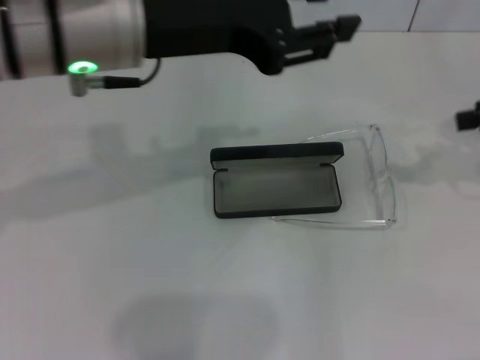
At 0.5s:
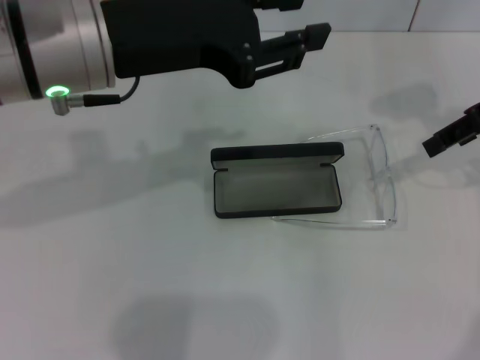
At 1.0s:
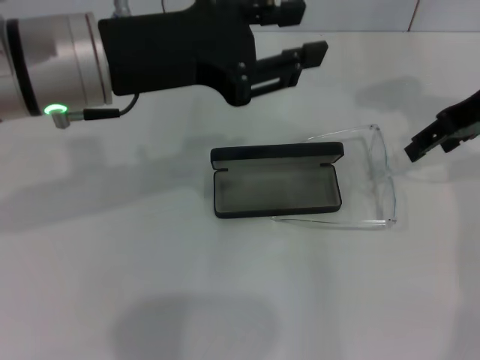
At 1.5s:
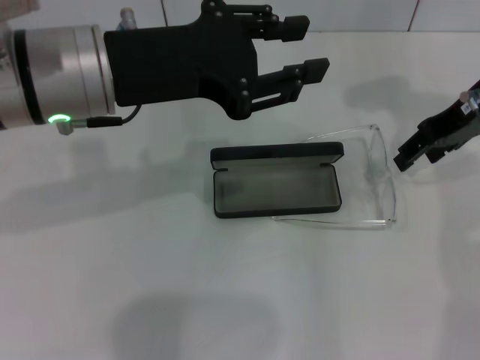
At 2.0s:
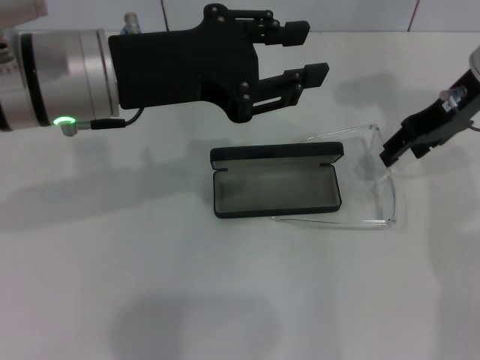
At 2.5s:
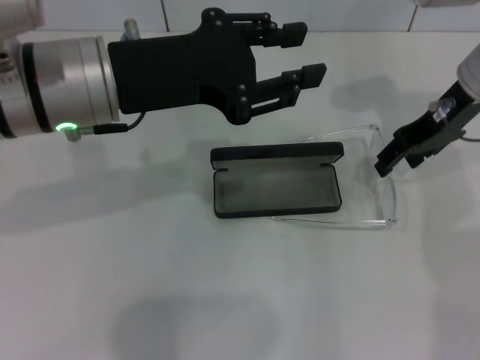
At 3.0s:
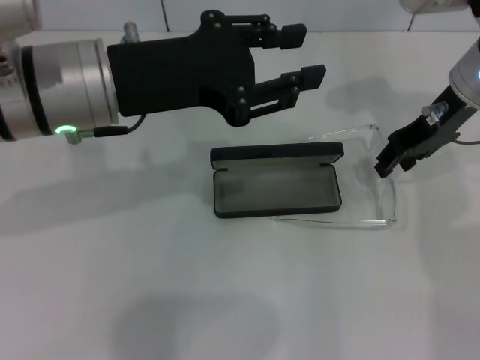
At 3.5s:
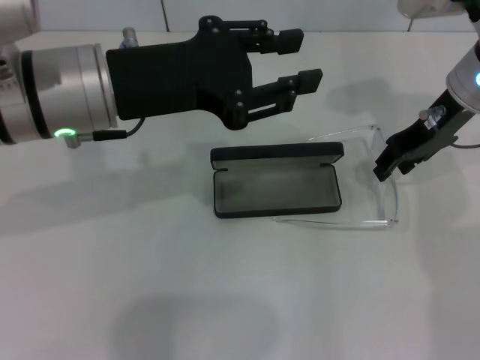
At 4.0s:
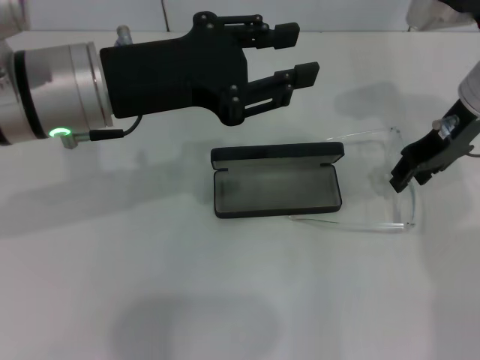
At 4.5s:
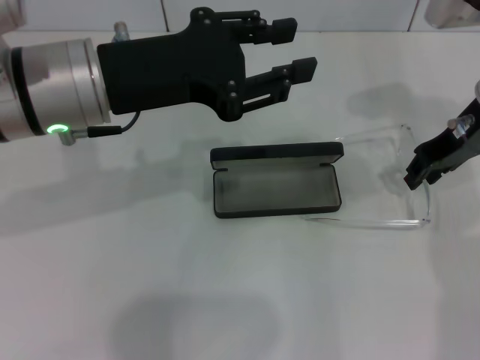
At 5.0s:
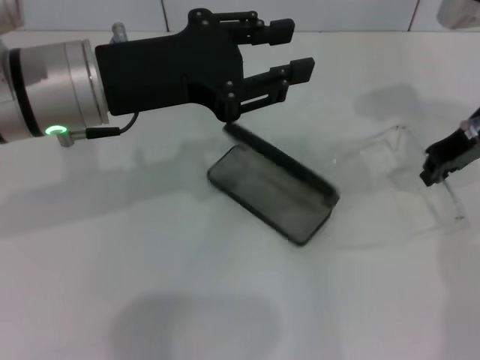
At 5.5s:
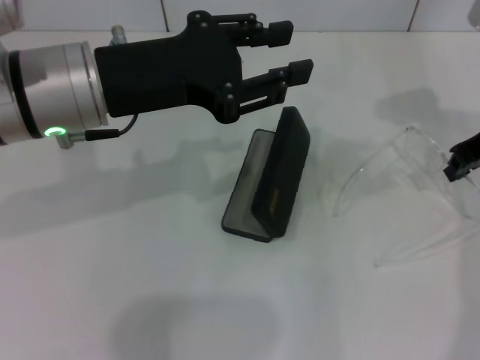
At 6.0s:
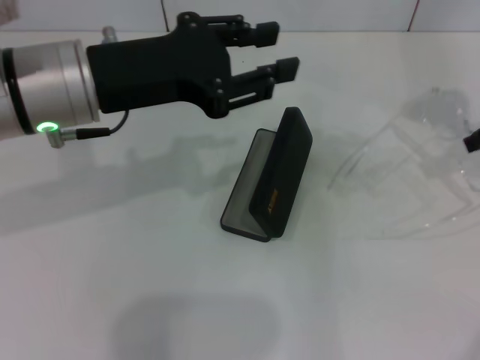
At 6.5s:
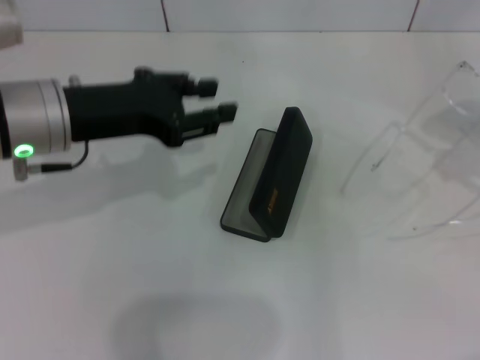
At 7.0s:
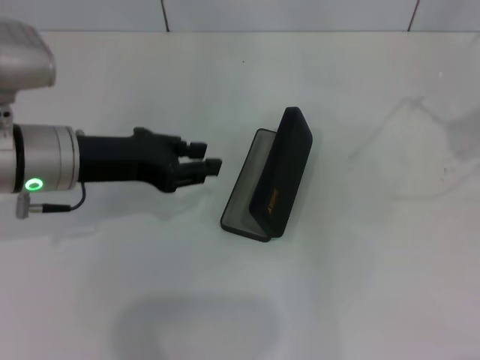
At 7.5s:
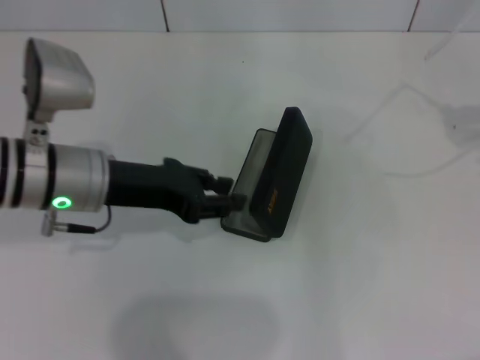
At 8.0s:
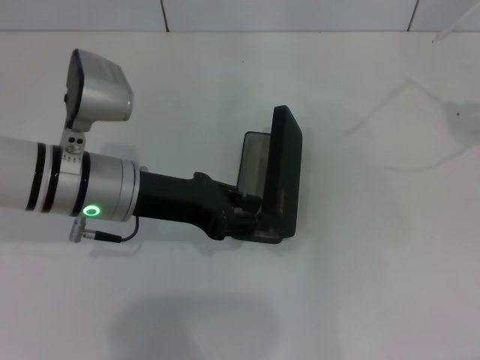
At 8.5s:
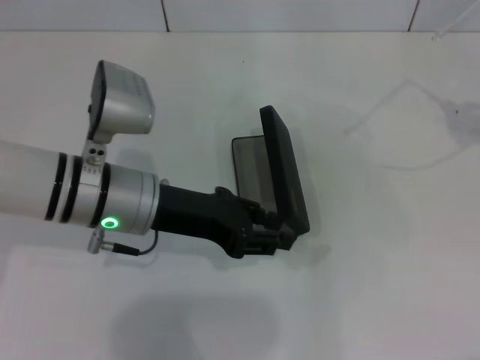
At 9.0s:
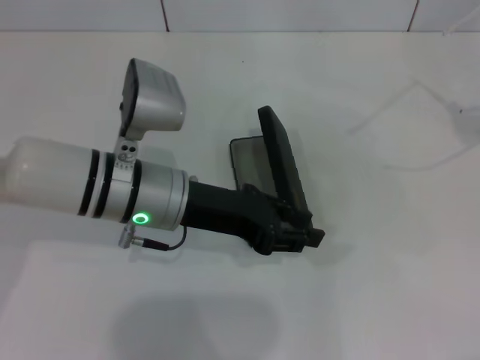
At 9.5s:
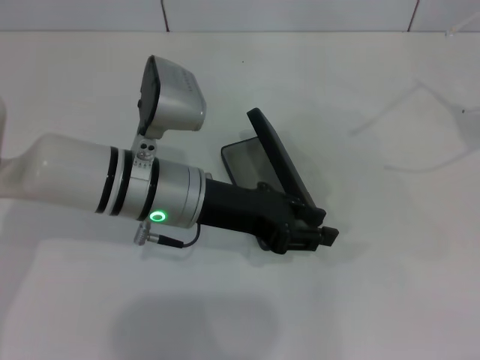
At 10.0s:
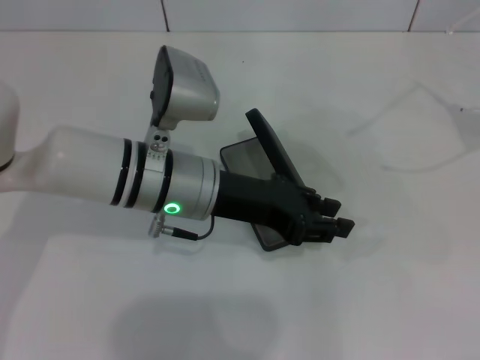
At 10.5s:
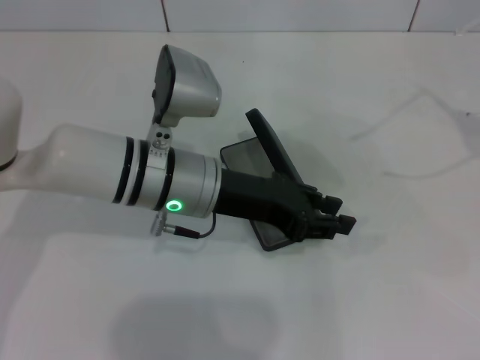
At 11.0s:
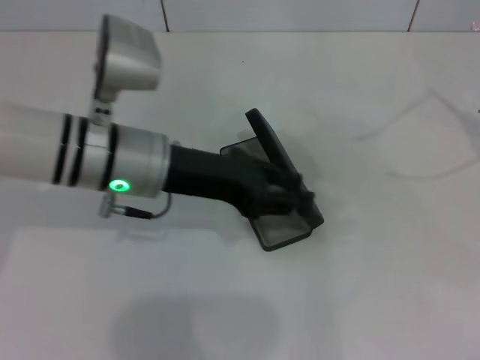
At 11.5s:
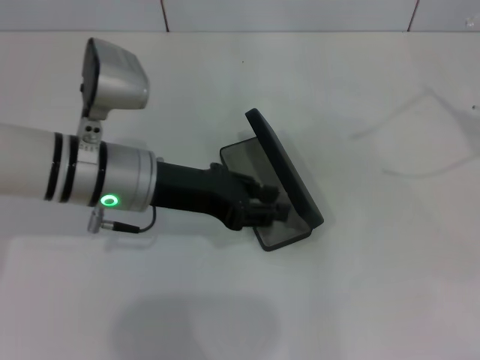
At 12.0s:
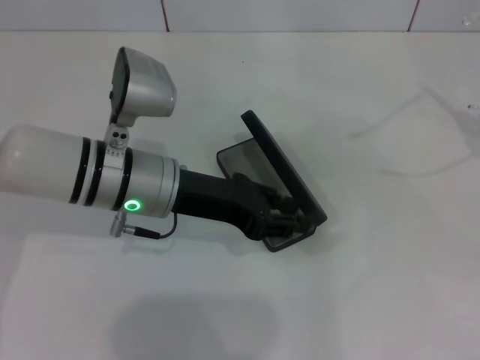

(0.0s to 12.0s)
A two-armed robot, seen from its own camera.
Step, 0.0s - 3.5s: Grab the eyeglass frame with your right hand.
0.0s - 2.0s: The right gripper shifts approximately 15 cm to the left and forward.
2.0s - 4.0s: The grippers stay close to where they were, moving slightly.
4.0s - 6.0s: The right gripper travels to the right by about 10 cm, and closes.
6.0s - 8.0s: The right gripper heads upward, to the right and backward, covering approximately 15 cm. The left gripper heads downward, covering approximately 10 cm.
8.0s - 10.0s: The left gripper moves to the right, about 5 cm.

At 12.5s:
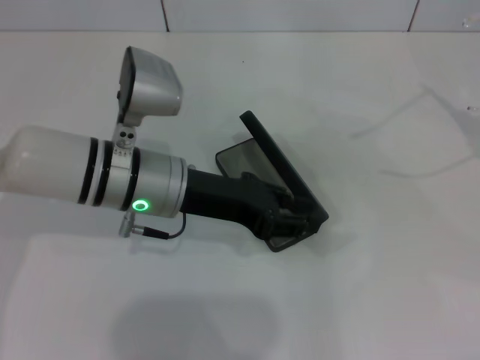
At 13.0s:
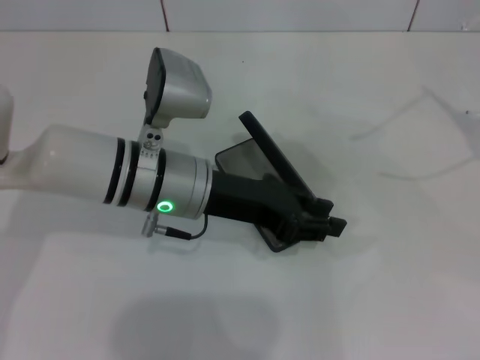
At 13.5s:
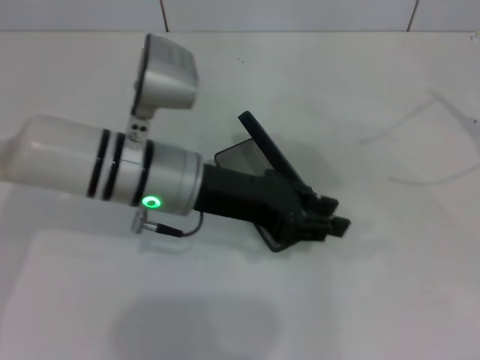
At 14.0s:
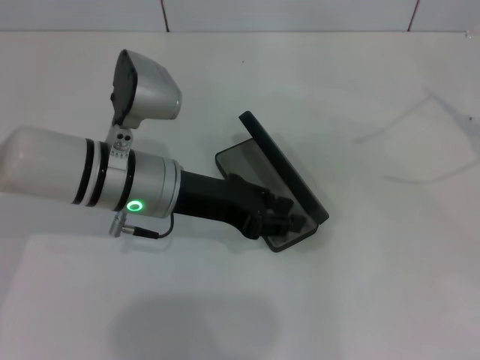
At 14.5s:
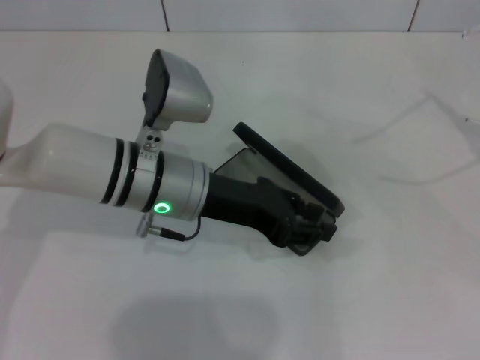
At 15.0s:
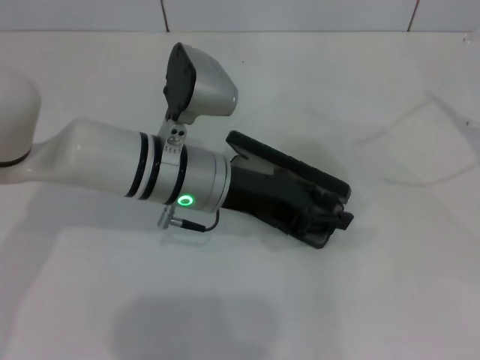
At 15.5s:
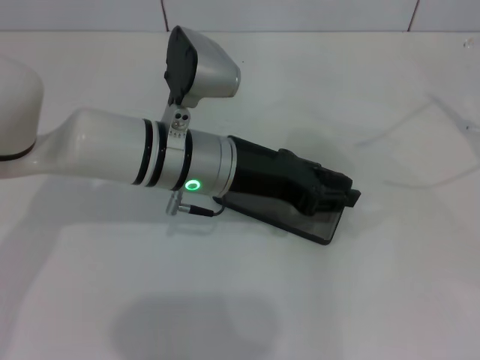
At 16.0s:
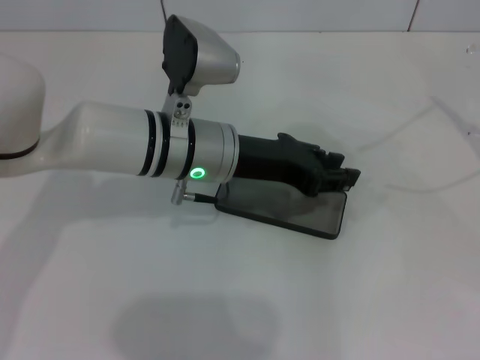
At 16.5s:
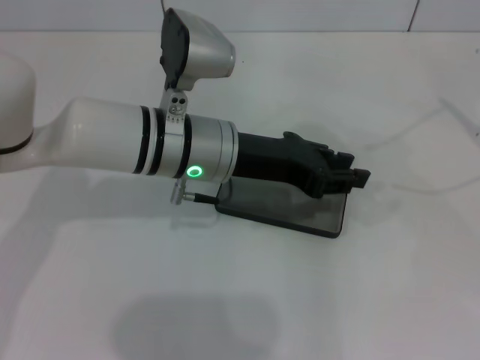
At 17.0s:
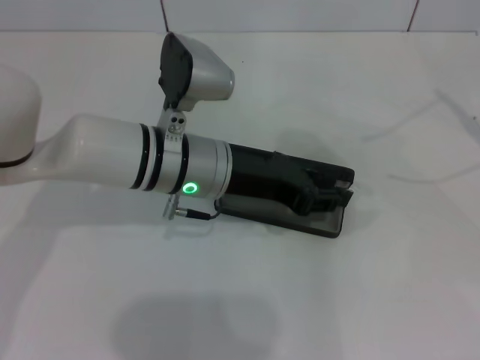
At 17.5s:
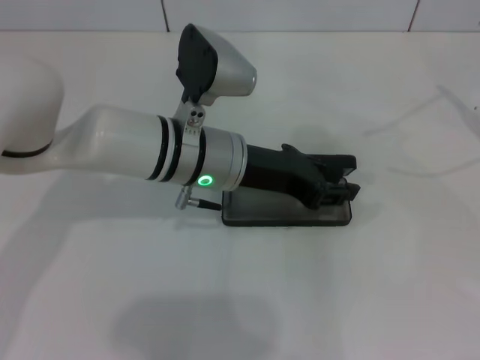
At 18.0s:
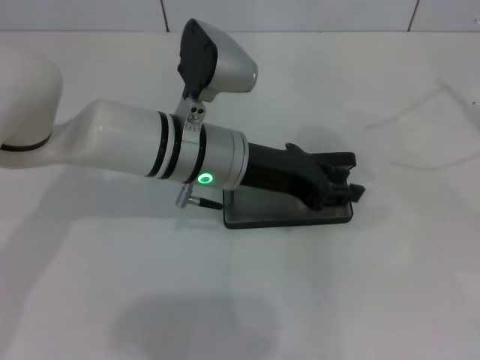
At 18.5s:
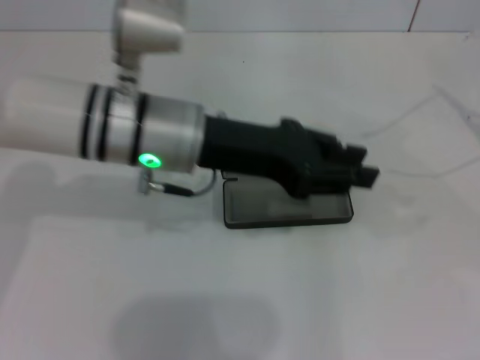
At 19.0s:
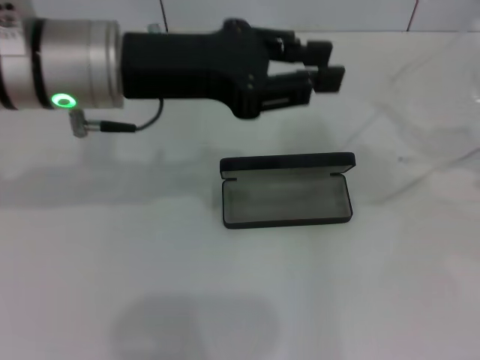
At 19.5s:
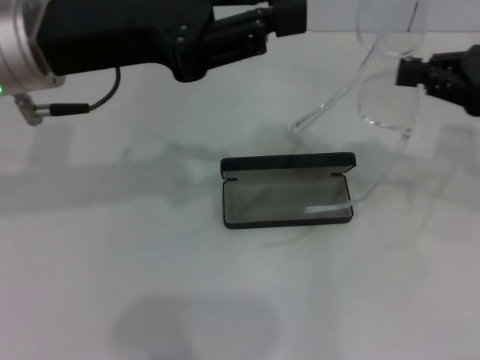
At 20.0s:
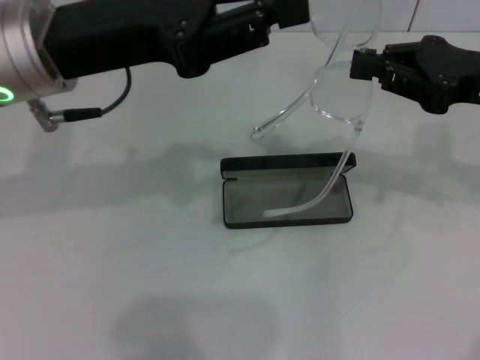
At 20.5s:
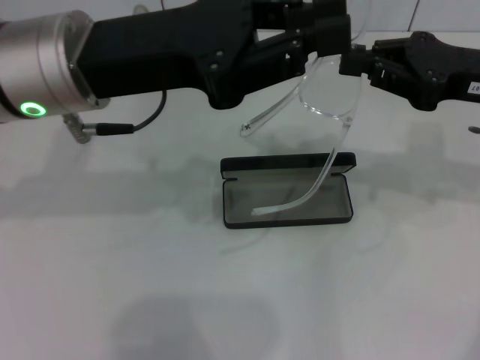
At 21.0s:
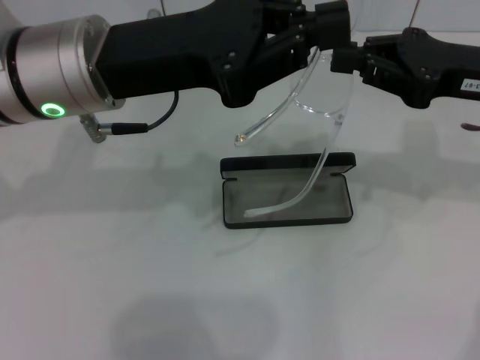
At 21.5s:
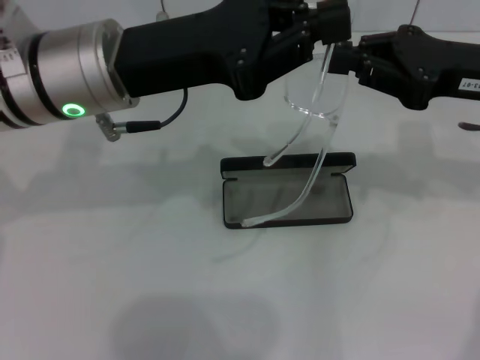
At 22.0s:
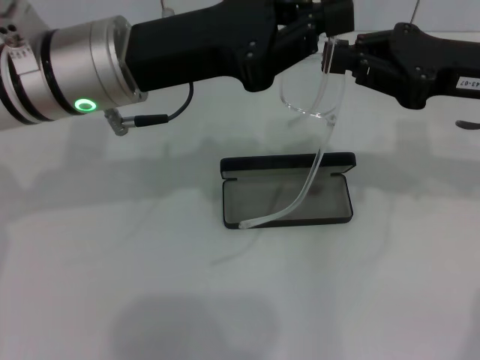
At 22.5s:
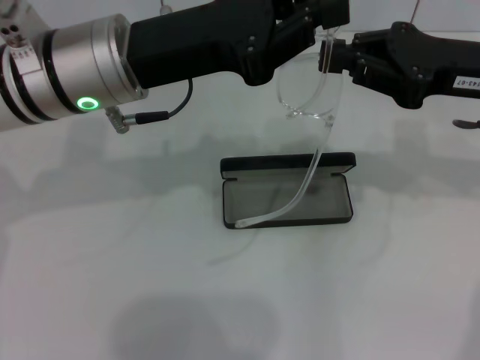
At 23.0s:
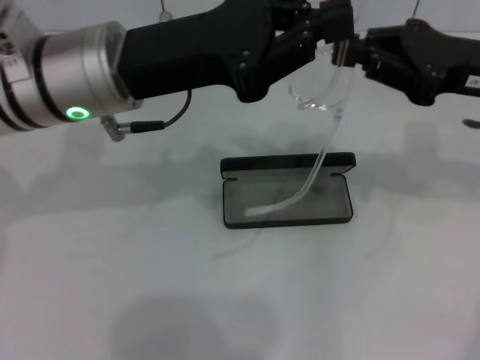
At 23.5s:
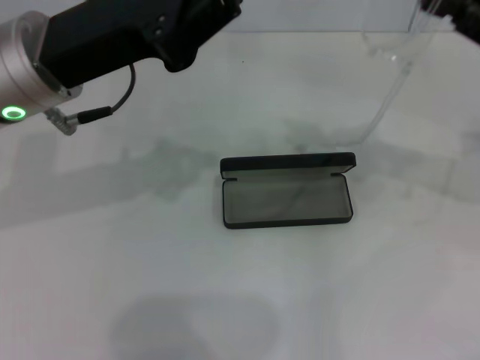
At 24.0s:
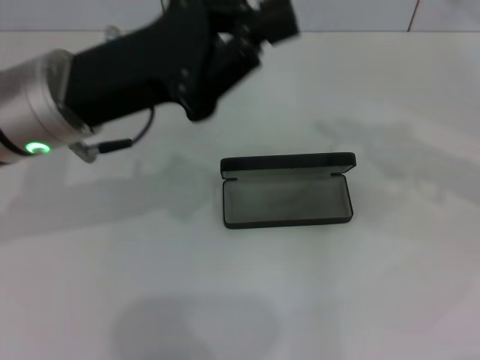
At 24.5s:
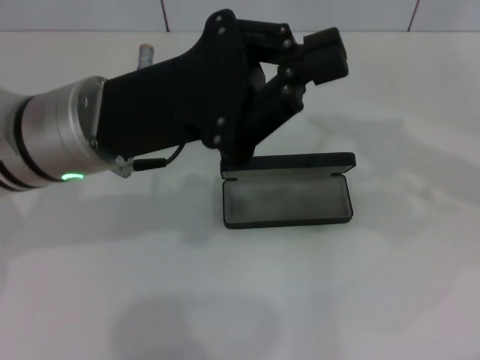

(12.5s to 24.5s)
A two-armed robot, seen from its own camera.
12.5s - 16.5s: There are only small adjustments of the grippers.
16.5s - 18.5s: The left gripper ends up about 5 cm from where it was.
18.5s - 20.5s: The right gripper travels to the left by roughly 20 cm. The left gripper moves upward and to the left, about 10 cm.
20.5s - 22.5s: The grippers stay close to where they were, moving slightly.
22.5s - 24.5s: The right gripper is displaced to the right by approximately 5 cm.

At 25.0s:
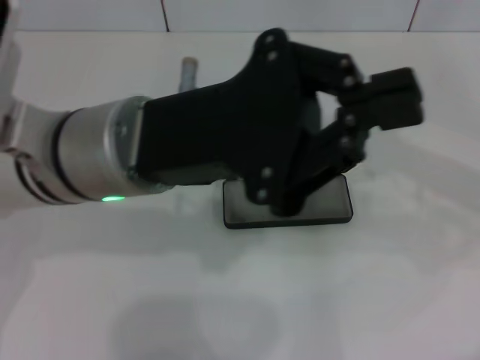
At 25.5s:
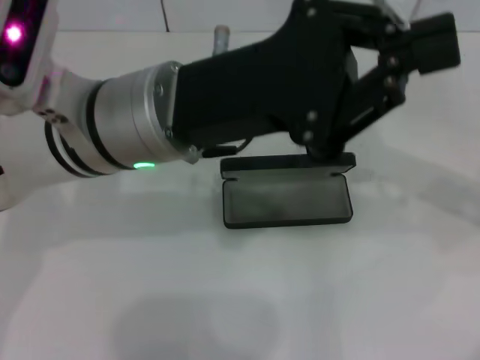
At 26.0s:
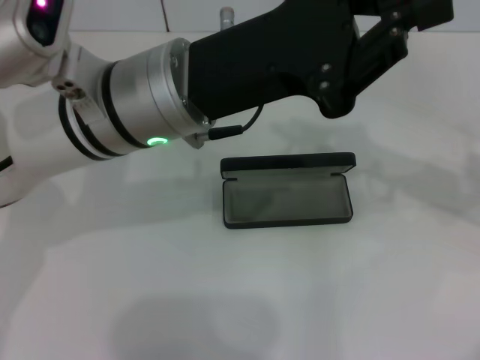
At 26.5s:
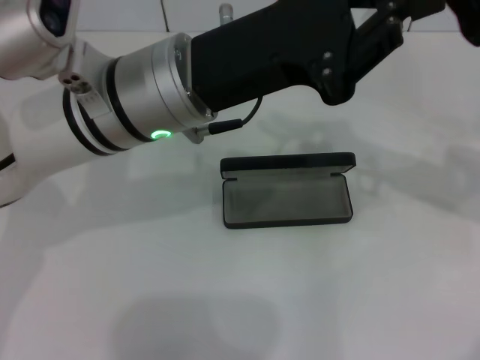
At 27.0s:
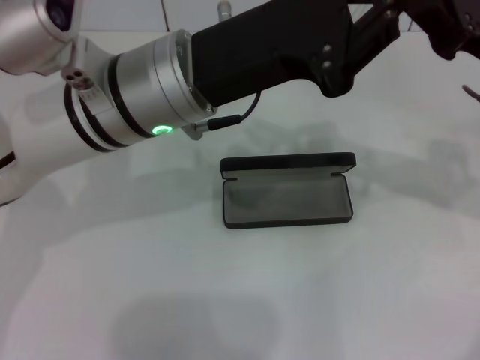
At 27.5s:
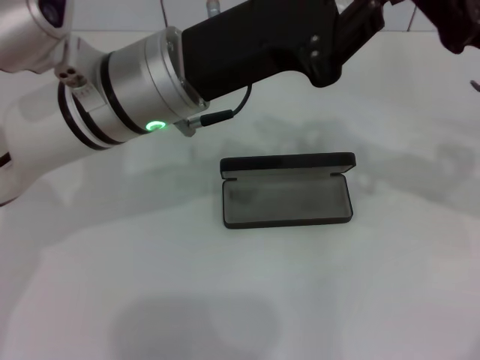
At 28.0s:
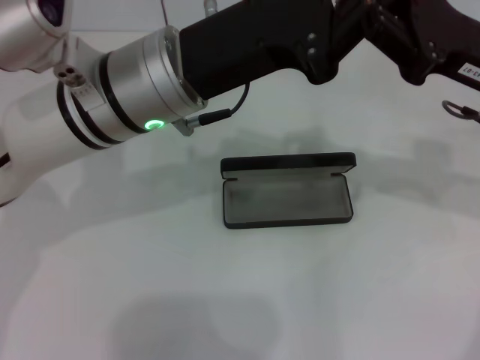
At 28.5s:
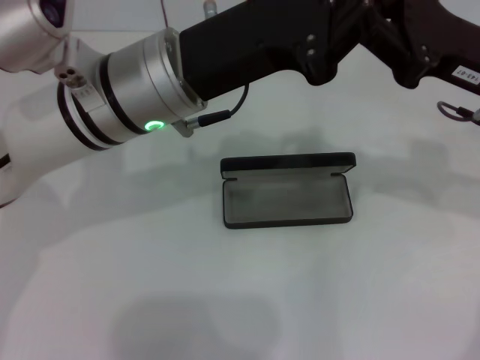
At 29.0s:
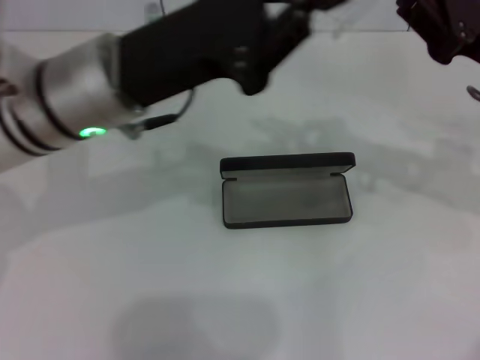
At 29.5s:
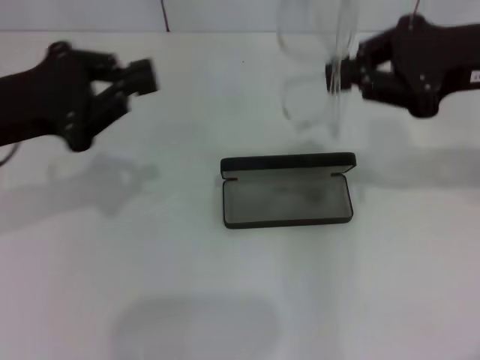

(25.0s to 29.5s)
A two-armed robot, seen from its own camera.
Step, 25.0s - 28.5s: Fold the frame with your left hand.
25.0s - 27.0s: The right gripper moves approximately 5 cm.
27.0s - 29.5s: The left gripper shifts roughly 20 cm to the left; the right gripper shifts about 5 cm upward.
